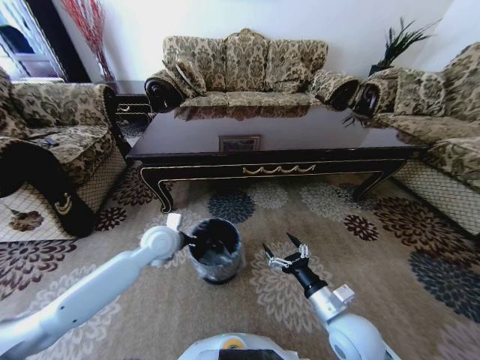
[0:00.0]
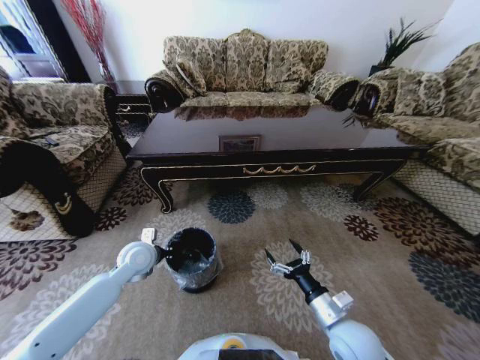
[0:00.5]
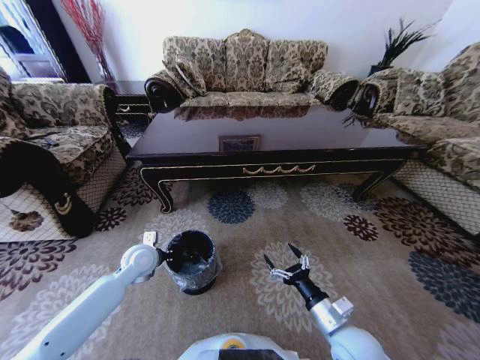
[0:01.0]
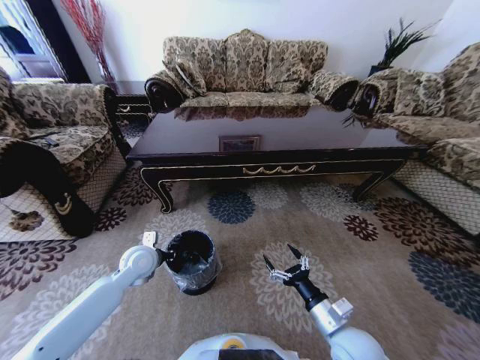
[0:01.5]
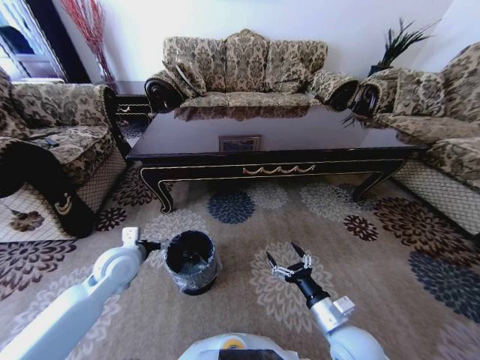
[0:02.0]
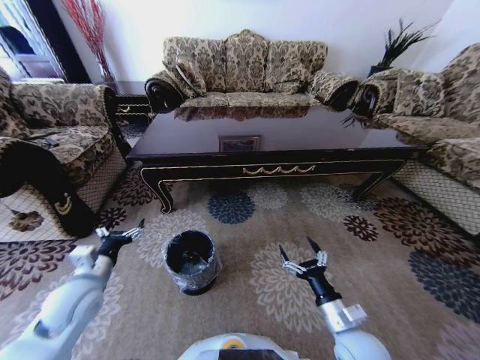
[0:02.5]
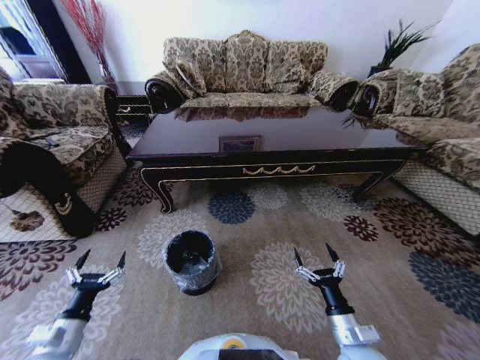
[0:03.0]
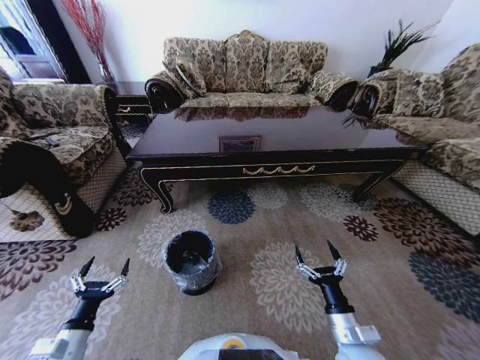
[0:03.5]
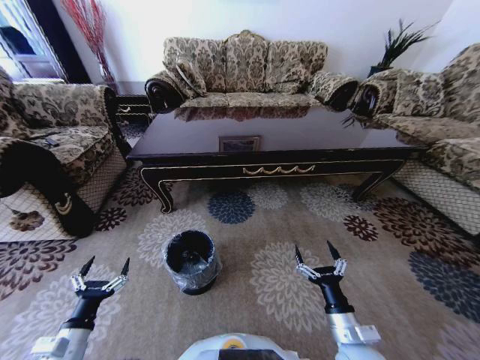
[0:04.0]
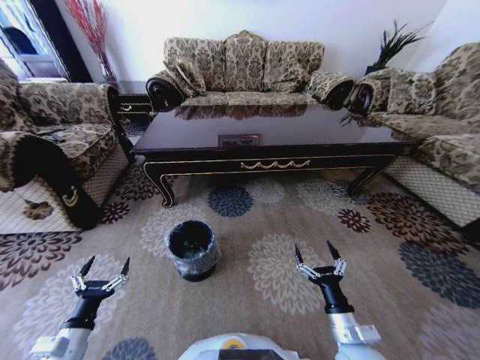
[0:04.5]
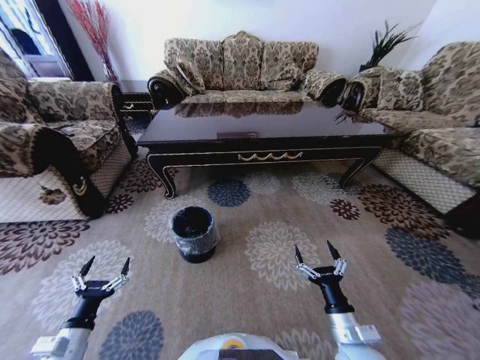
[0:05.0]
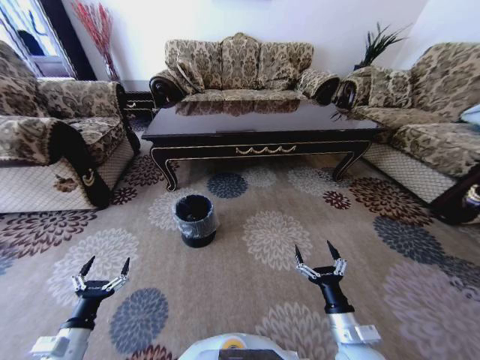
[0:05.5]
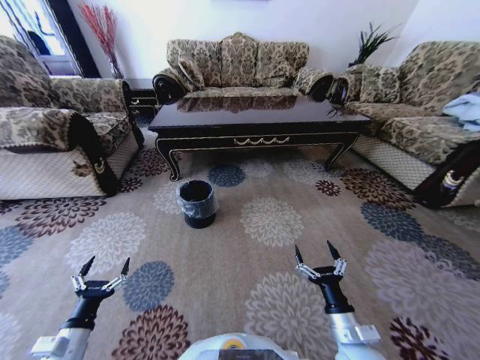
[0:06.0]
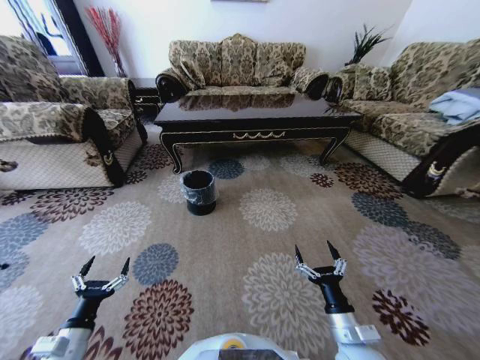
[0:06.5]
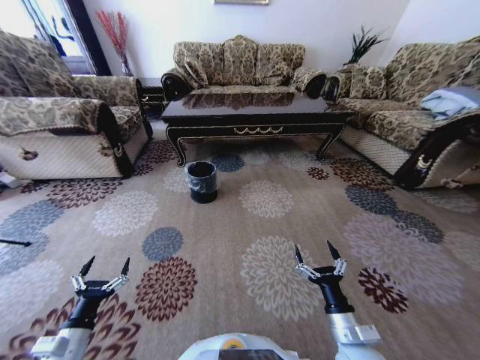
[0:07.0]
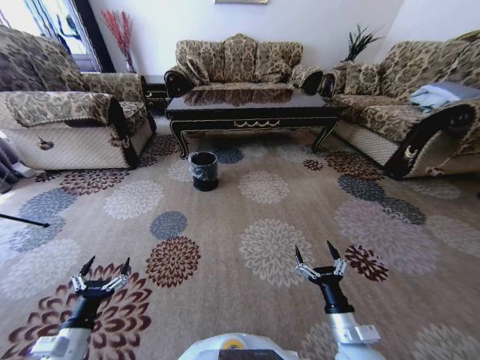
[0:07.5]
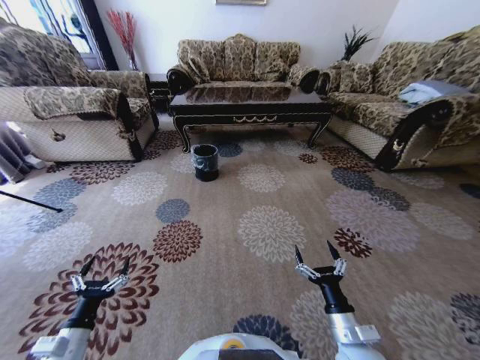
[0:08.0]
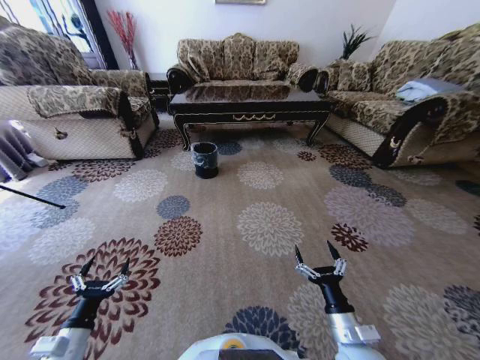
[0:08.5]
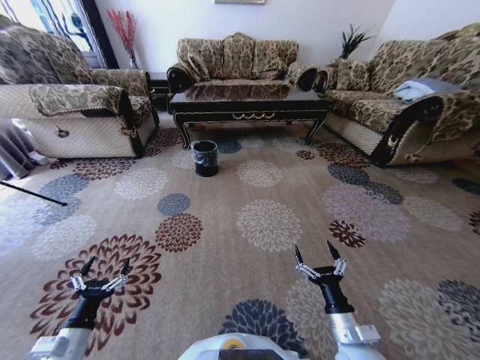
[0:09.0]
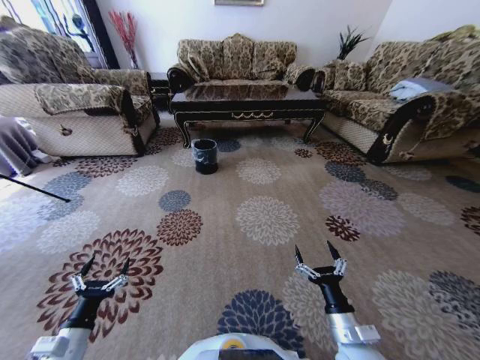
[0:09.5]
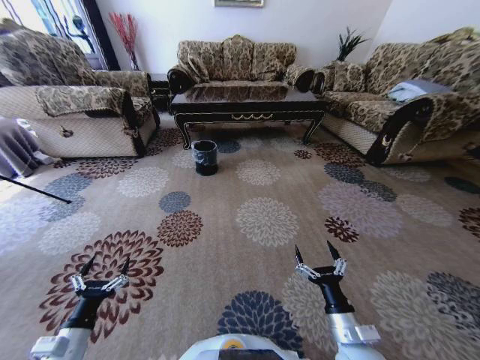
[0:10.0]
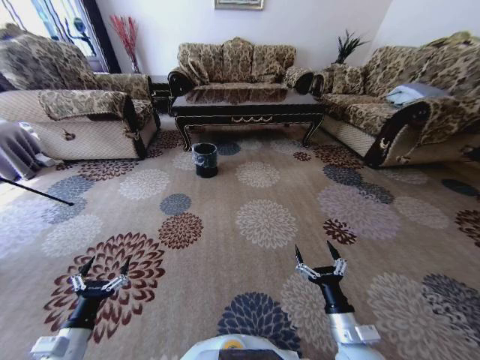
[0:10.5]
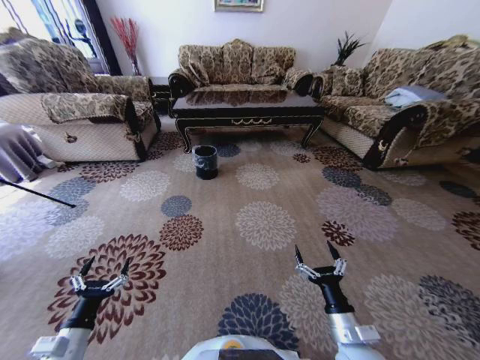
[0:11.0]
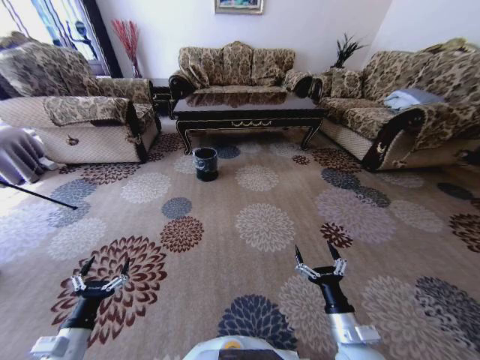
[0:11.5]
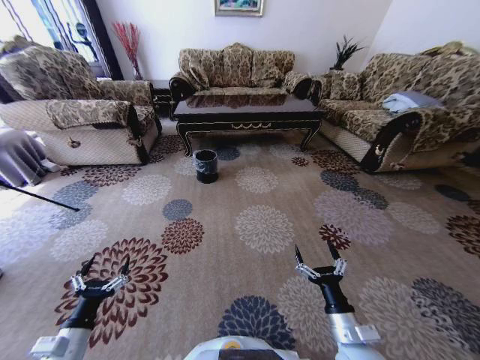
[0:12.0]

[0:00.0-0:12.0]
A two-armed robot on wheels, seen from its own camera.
Task of the whole recording: Move to the front of the table and pick up the trash from the floor, then place it into the trash bin.
0:00.0 to 0:02.0: The left gripper goes about 10 cm to the left and backward, and opens.
0:02.0 to 0:04.0: The left gripper goes some 25 cm backward and downward.

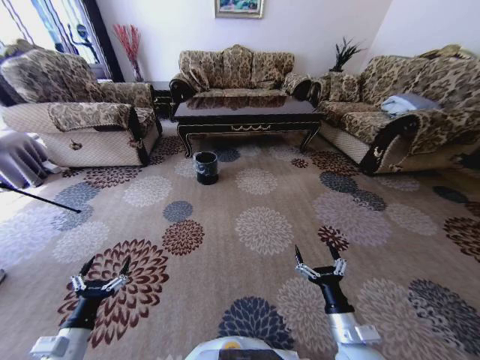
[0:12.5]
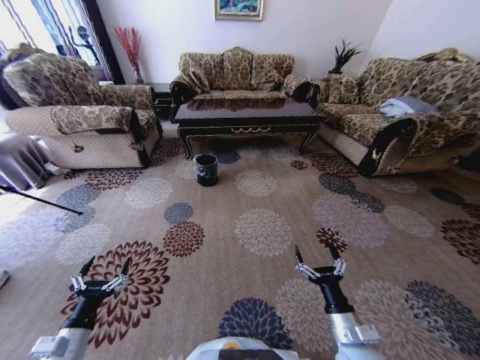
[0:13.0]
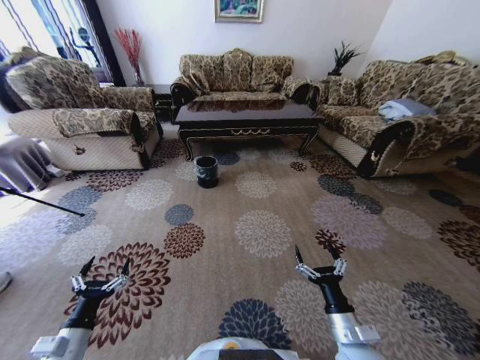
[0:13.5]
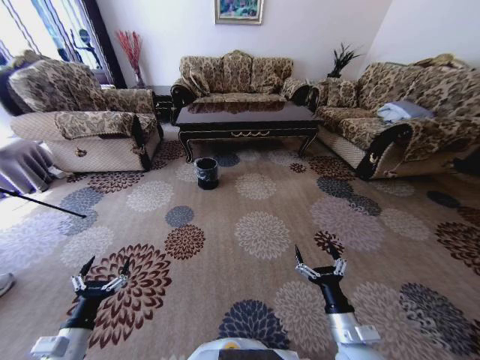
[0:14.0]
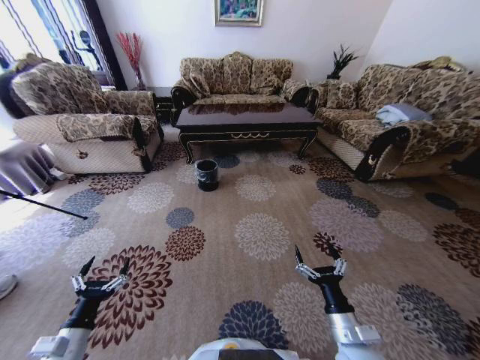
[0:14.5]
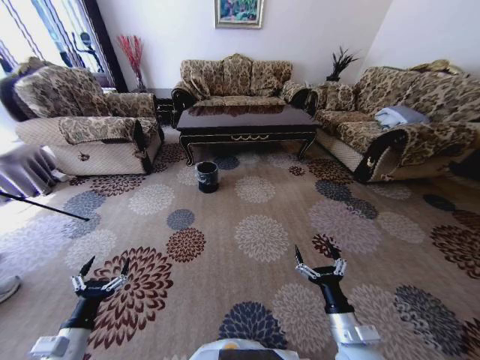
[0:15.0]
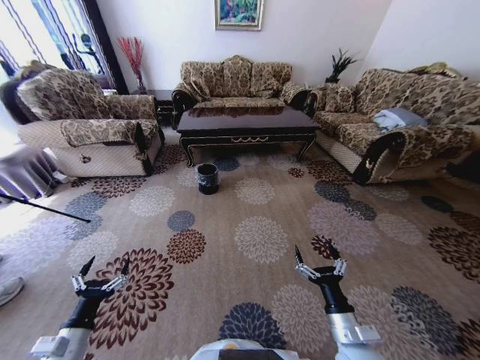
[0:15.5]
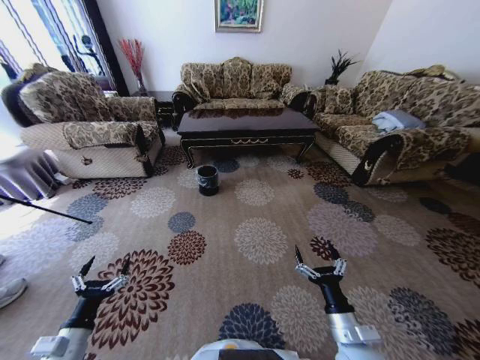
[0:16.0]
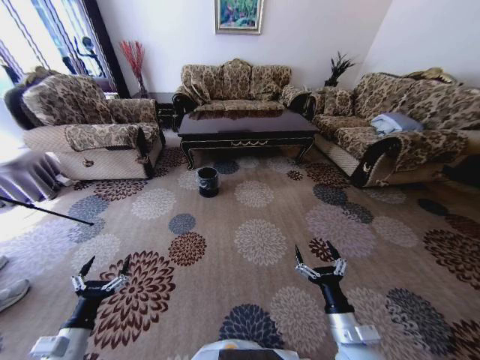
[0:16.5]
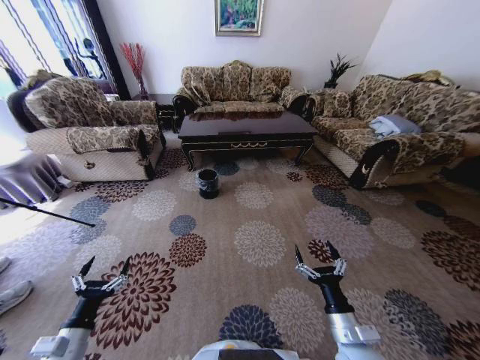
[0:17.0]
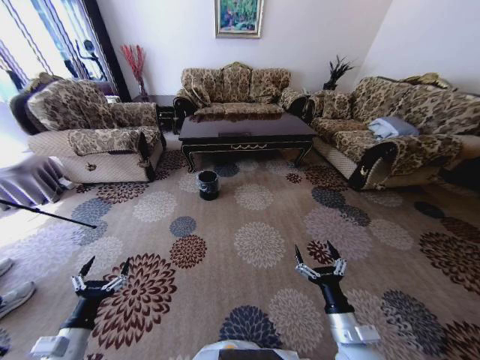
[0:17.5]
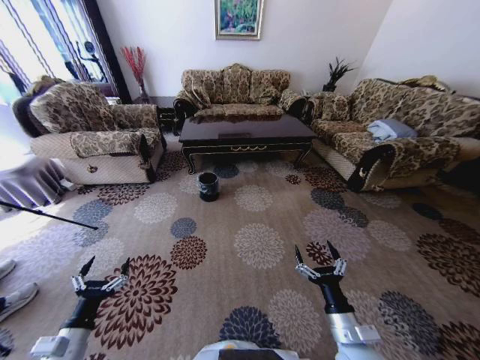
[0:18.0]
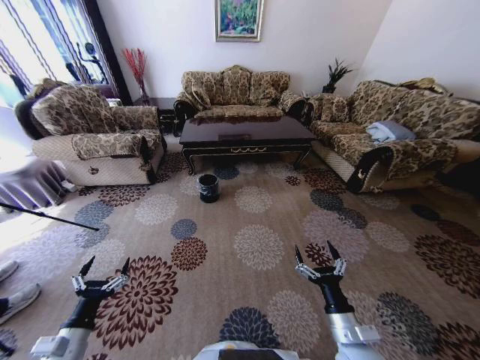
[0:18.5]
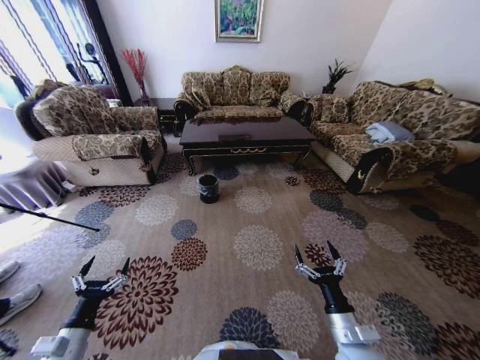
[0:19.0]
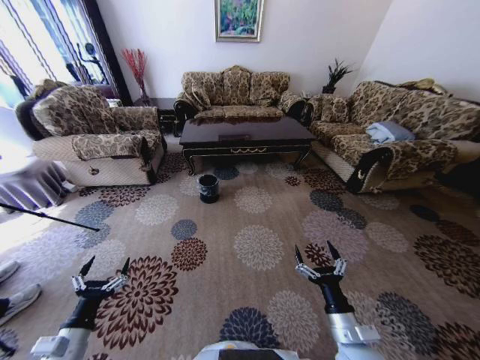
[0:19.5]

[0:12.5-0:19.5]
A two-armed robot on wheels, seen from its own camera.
Task of the whole recording: Move to the front of the table and pick up the trash from the floor, then place it into the trash bin.
0:17.5 to 0:19.5: Both grippers stay put.
